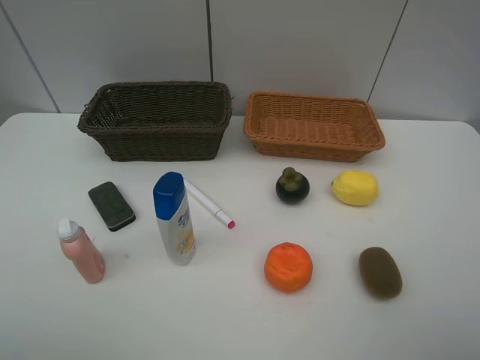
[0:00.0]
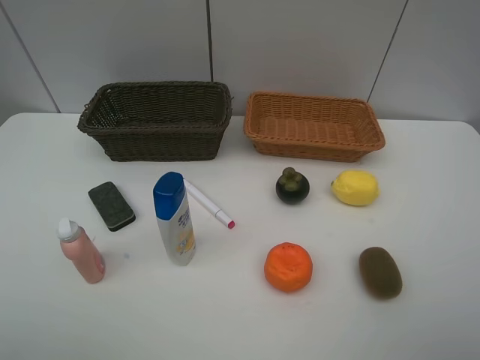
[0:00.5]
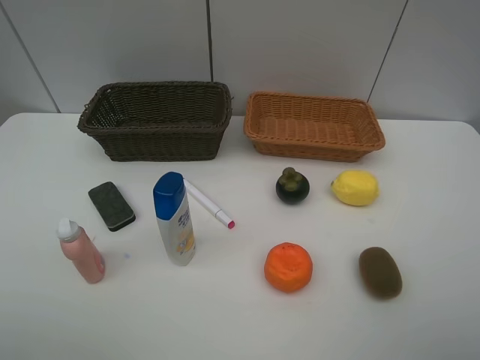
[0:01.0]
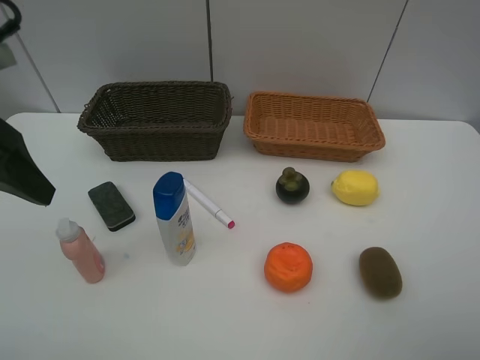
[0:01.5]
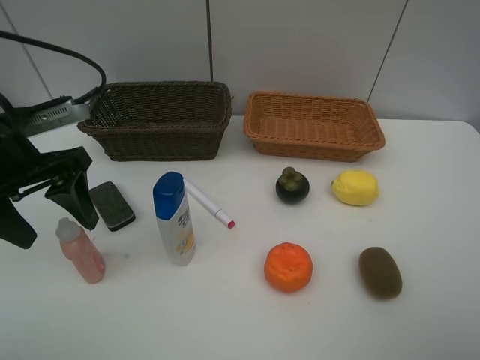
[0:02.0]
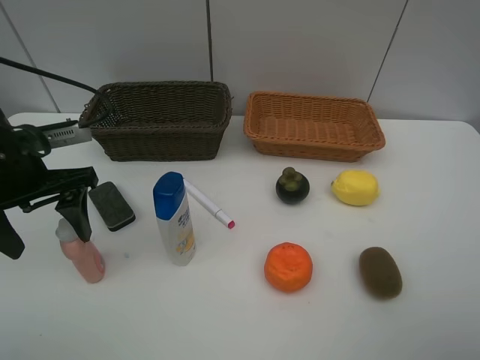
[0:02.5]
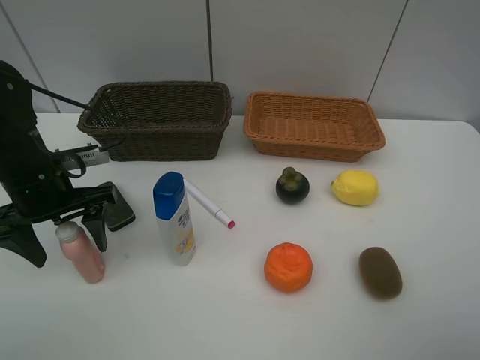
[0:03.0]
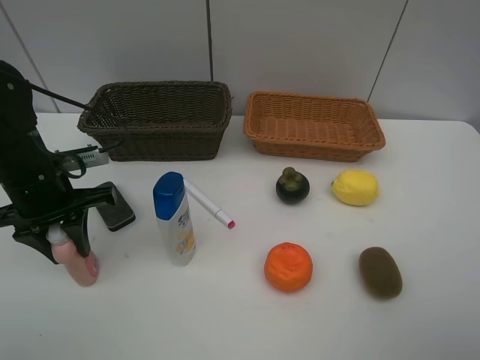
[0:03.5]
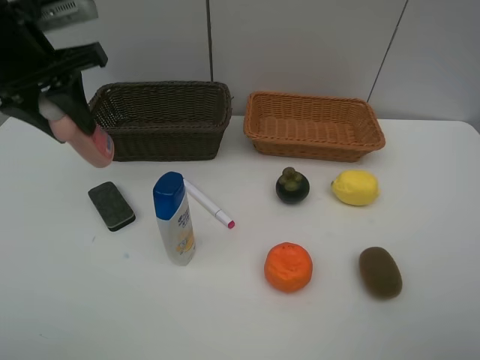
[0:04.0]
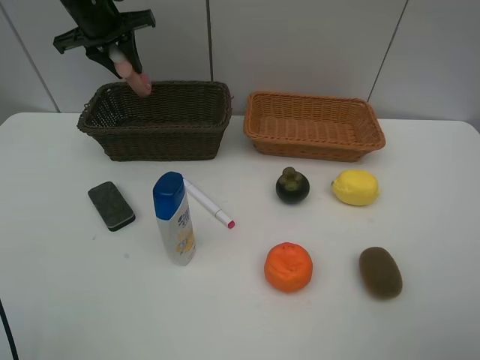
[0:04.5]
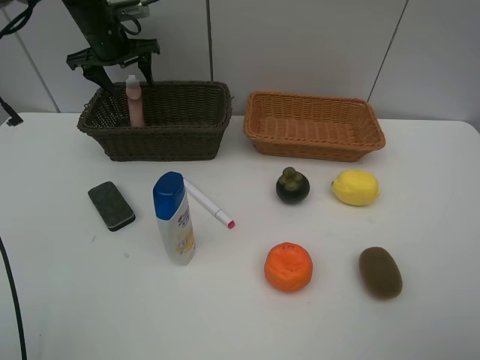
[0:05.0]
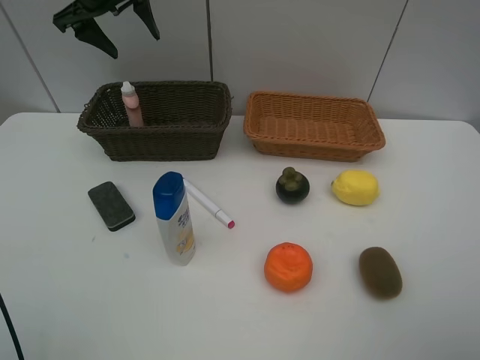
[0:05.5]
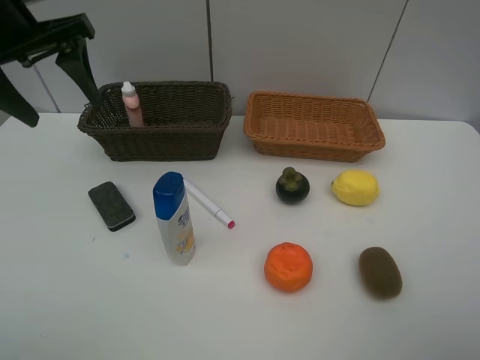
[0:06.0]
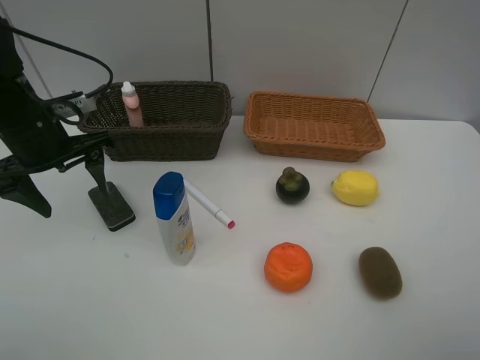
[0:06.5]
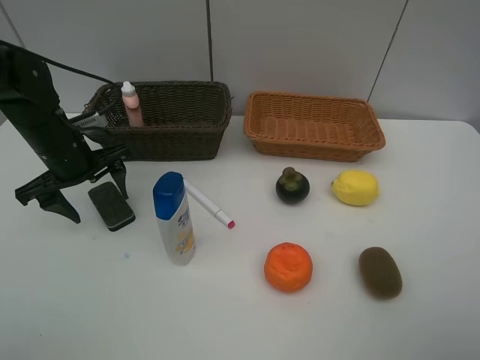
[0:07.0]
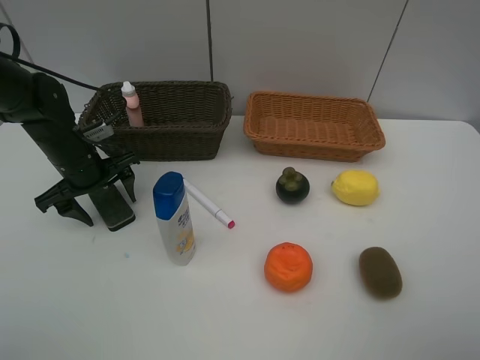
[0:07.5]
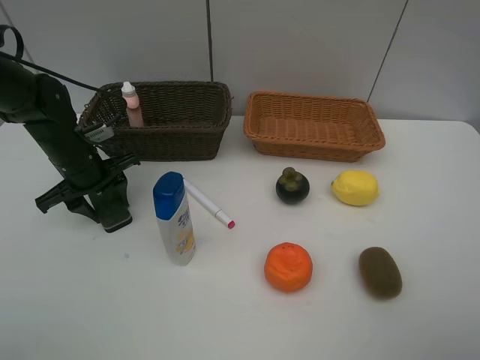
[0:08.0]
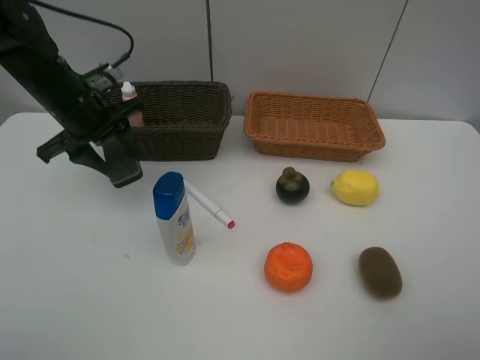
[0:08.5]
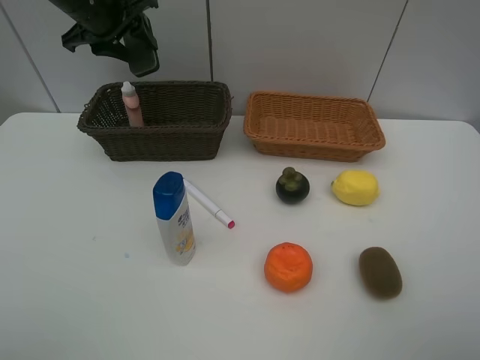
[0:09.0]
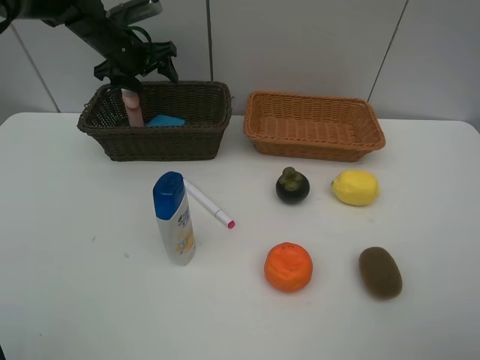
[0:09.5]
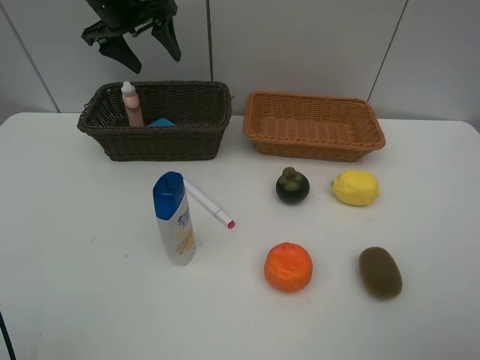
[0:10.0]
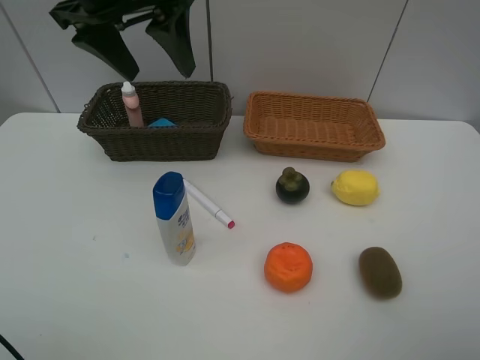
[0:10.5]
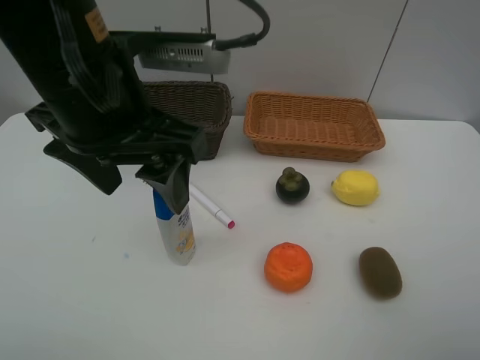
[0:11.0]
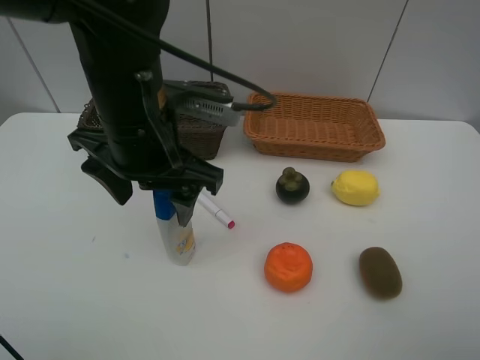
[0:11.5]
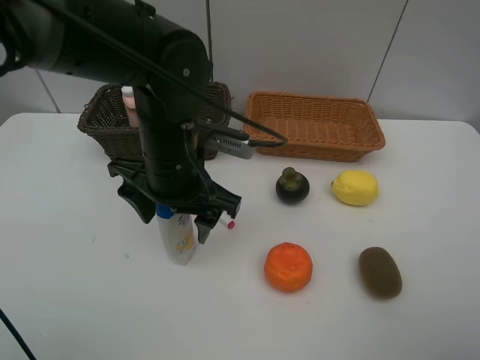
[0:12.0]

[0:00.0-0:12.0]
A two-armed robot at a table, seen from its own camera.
Task of the whole recording: Place multiple objects separately in different baskets.
Step, 0:00.0 to 0:03.5: Pick up the laundry detergent with left gripper.
Step, 0:04.0 to 0:05.0: Place the laundry detergent in the dark basket with left gripper.
Step, 0:05.5 to 0:08.0: Pick up blackboard eraser with left gripper.
Step, 0:08.5 to 0:09.5: Place the blackboard eraser in the dark basket with left gripper.
0:00.0 to 0:02.0: The left gripper shifts about 25 cm forward.
0:02.0 to 0:04.0: The left gripper moves upward and forward, roughly 15 cm, and closes.
0:04.0 to 0:06.0: The left gripper moves some 20 cm forward and comes back, and opens.
0:06.0 to 0:08.0: The left gripper shifts approximately 20 cm downward, and closes its fingers.
0:08.0 to 0:10.0: The left gripper moves up and down over approximately 20 cm, changing direction 2 times, and opens its fingers.
0:10.0 to 0:12.0: The left gripper travels backward, to the right and downward by roughly 30 cm.

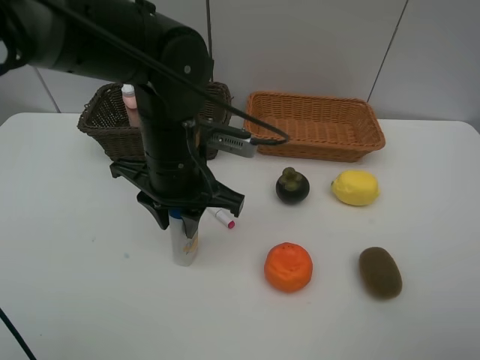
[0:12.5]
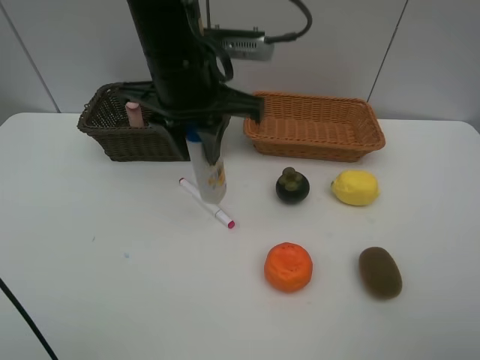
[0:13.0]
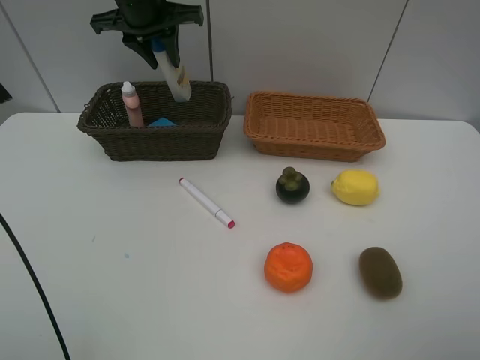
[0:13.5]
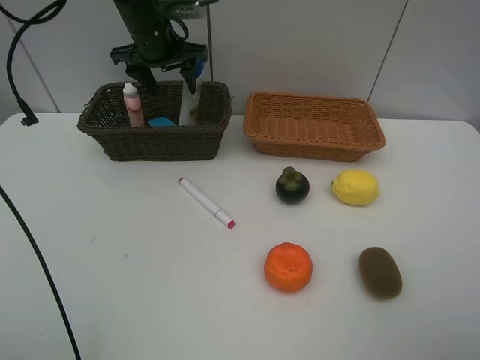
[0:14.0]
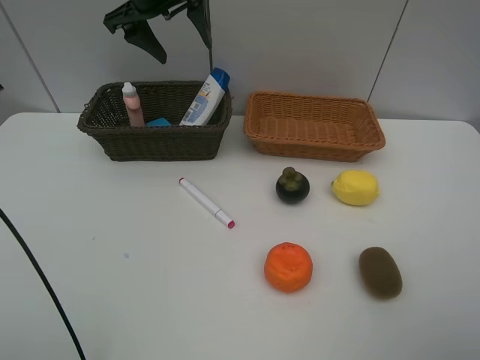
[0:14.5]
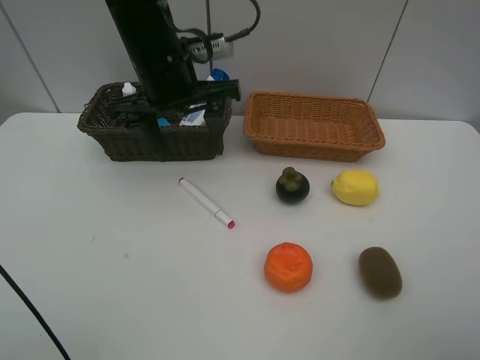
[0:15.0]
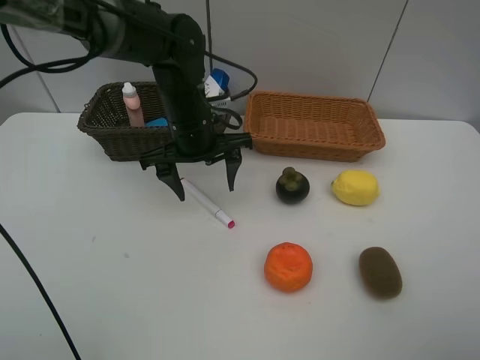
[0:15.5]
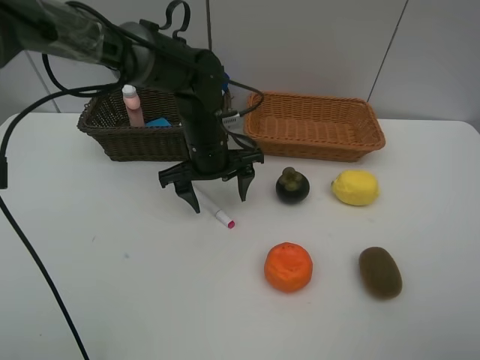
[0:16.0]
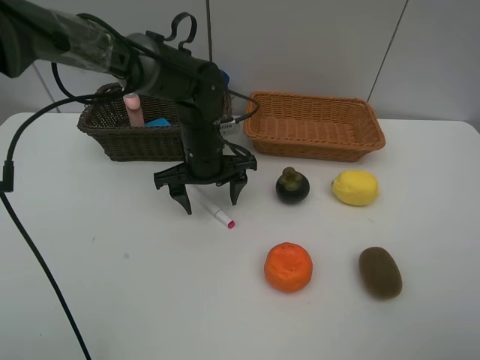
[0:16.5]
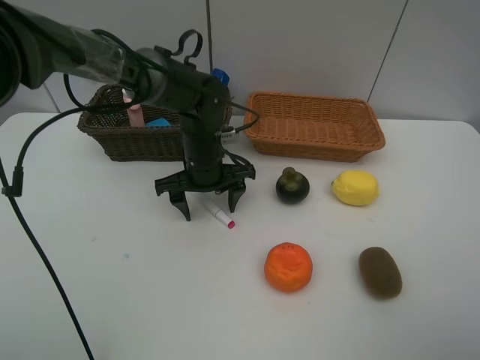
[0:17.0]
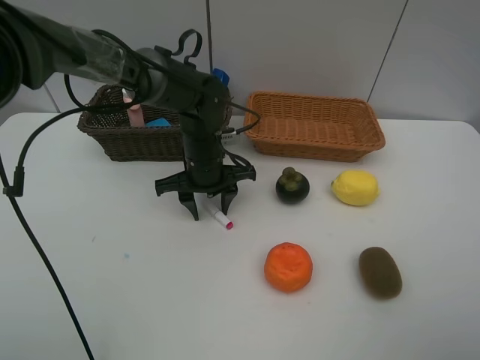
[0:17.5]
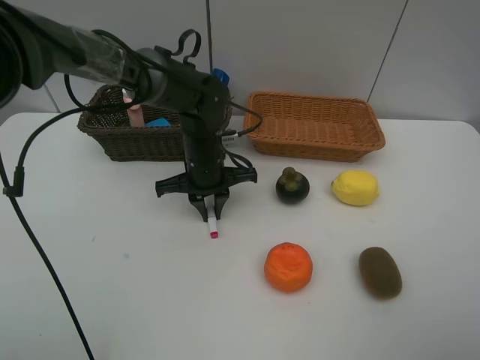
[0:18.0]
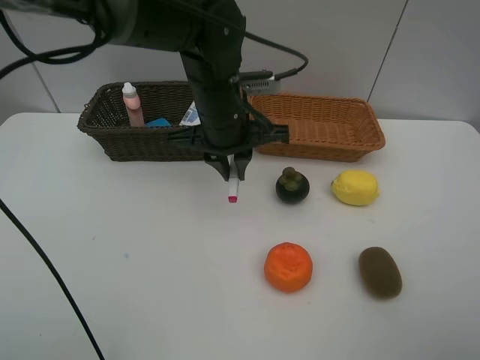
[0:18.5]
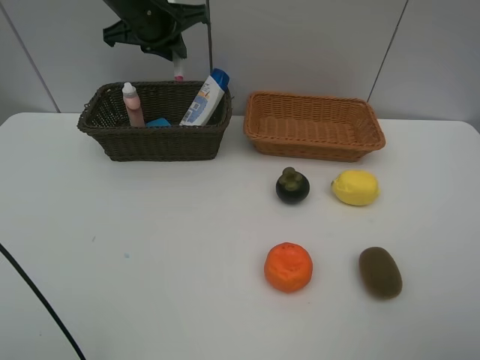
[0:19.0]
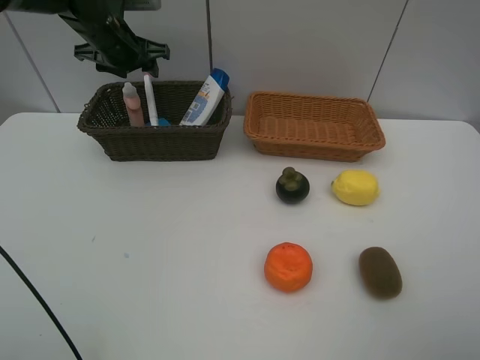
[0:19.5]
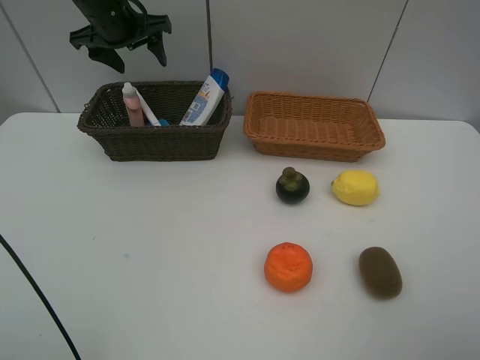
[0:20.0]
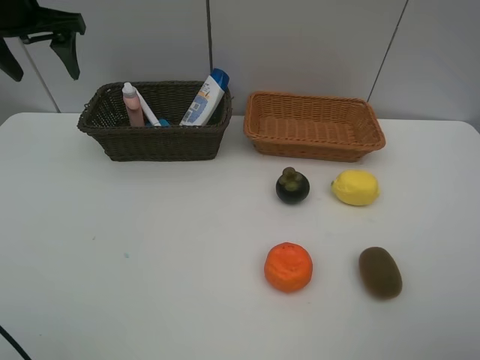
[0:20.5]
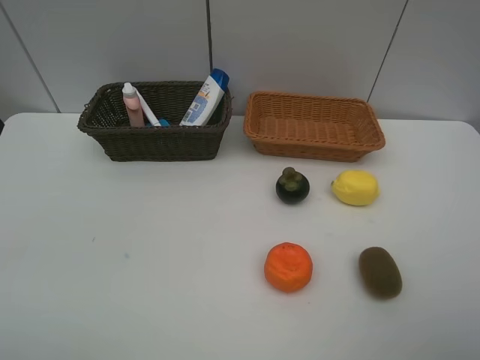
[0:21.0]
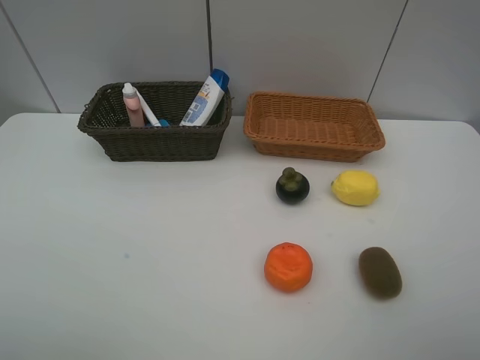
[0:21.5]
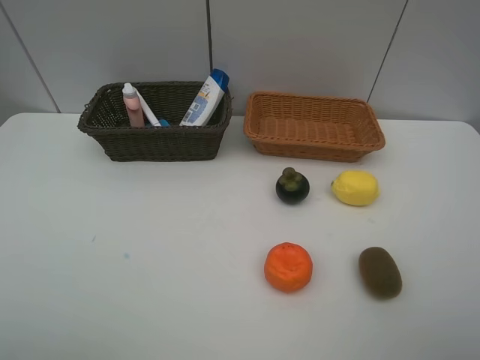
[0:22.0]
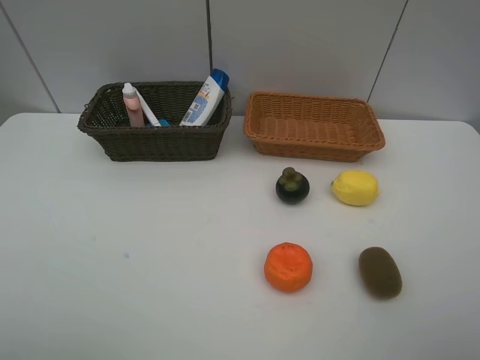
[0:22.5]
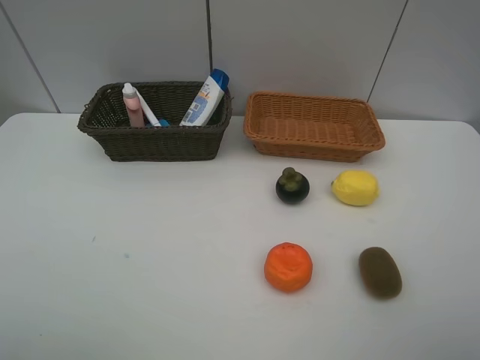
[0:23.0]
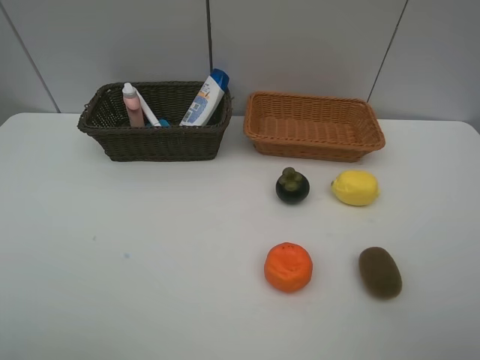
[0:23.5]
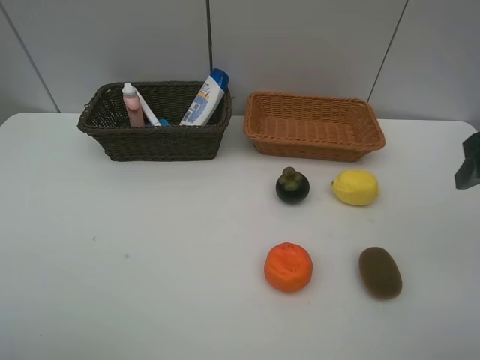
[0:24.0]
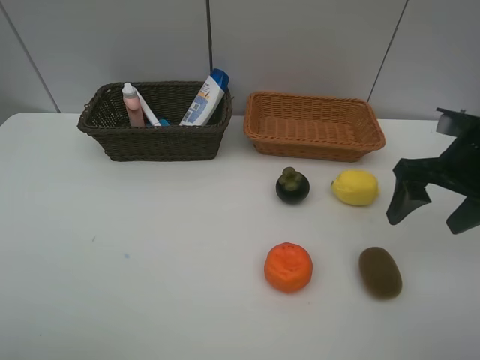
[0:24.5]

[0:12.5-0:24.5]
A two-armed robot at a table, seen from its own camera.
Task of the whole recording: Place multiple objects separately in different baskets.
Step, 0:13.0 to 0:14.0: Place the shampoo in the dark basket with left gripper.
Step, 0:14.5 to 0:18.0: Pick up the red marker with left gripper.
Step, 0:18.5 to 0:19.5: Place the red marker in the dark basket with left gripper.
0:12.5 to 0:14.5: The left gripper moves forward and upward, roughly 25 cm, and opens its fingers.
0:14.5 to 0:16.5: The left gripper shifts roughly 20 cm downward and backward.
0:16.5 to 0:18.5: The left gripper travels upward by about 10 cm, and closes up.
0:18.5 to 0:20.5: The left gripper shifts roughly 30 cm to the left, and opens up.
0:20.5 to 0:22.5: The left gripper goes roughly 40 cm backward.
0:22.5 to 0:24.5: The right gripper travels forward by about 25 cm.

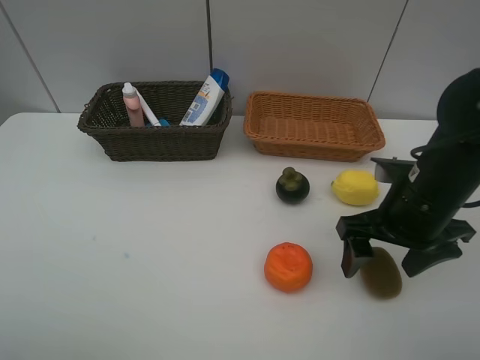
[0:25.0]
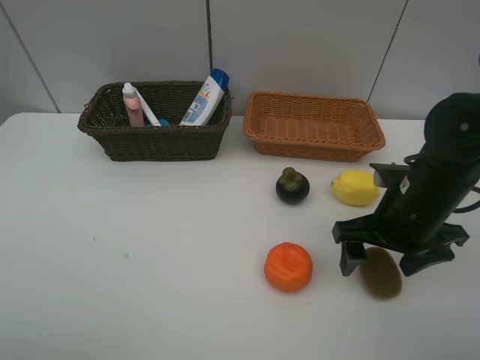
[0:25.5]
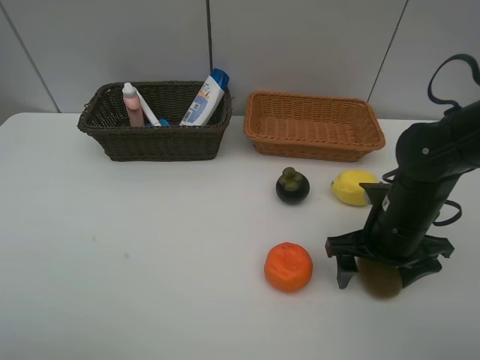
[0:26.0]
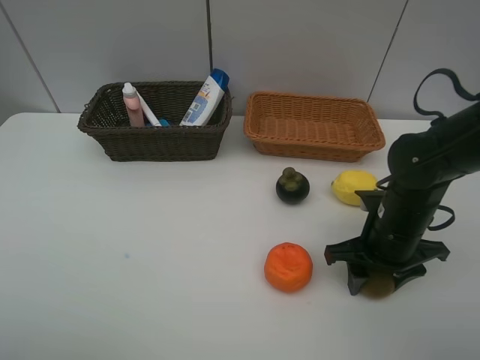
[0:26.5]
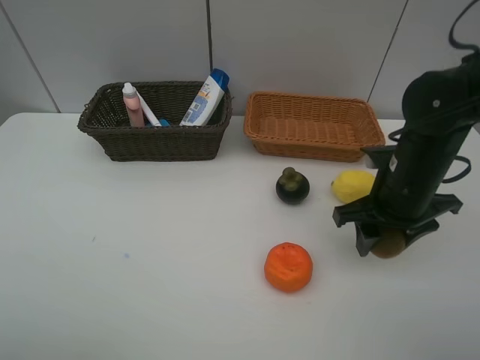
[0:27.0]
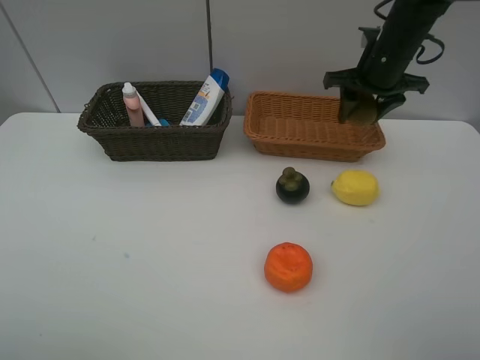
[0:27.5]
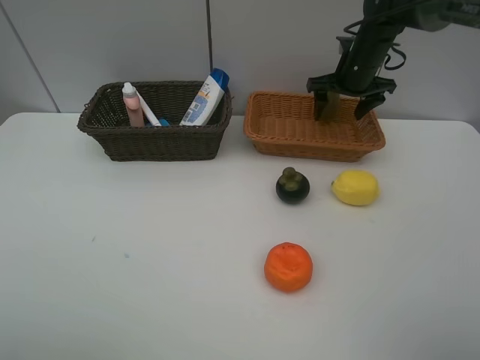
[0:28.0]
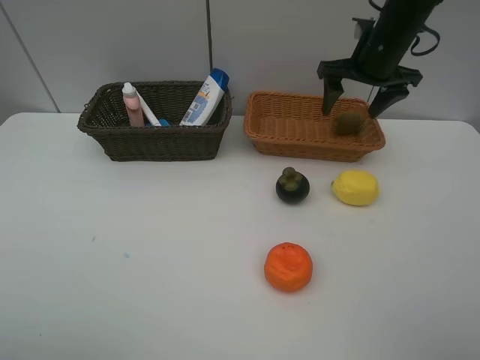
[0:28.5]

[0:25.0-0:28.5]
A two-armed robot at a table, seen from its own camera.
Task of the whole recording: Place multiple objects separately in different baskets.
Step, 0:27.0 to 0:28.0: Place the kiwi in the light basket with right gripper.
0:25.0 to 0:27.0: The right gripper is displaced forward by roughly 5 cm, and closes its fingers.
0:27.0 to 0:28.5: The right gripper goes about 15 cm forward and upward, and opens its fingers.
